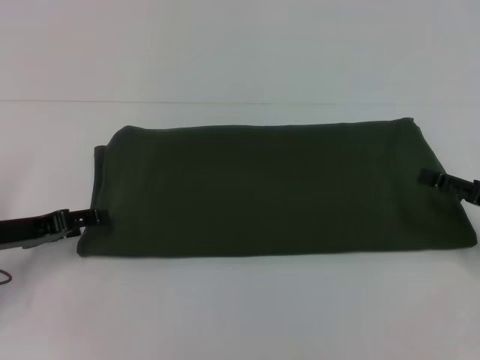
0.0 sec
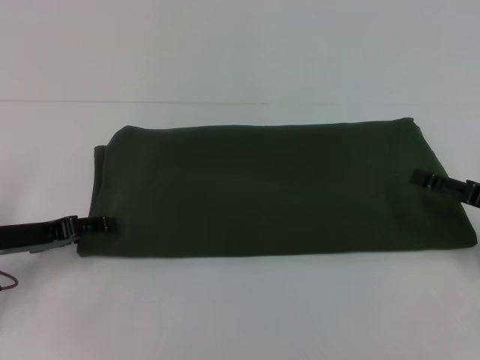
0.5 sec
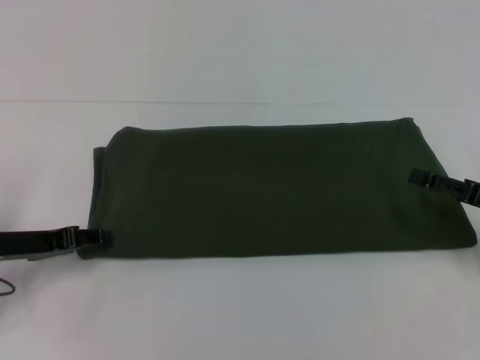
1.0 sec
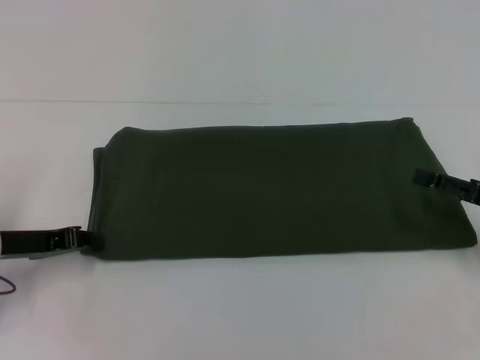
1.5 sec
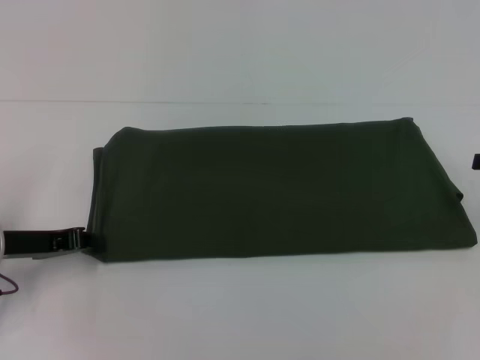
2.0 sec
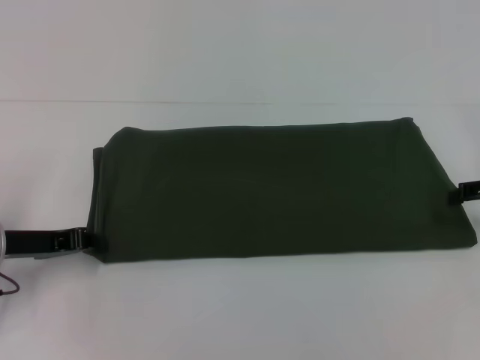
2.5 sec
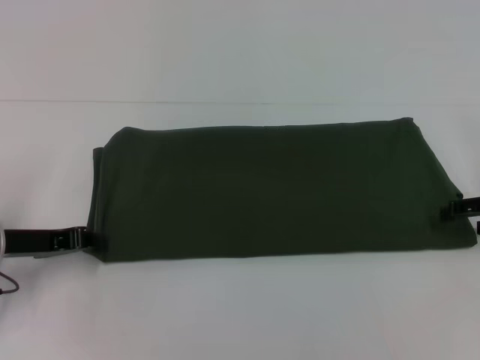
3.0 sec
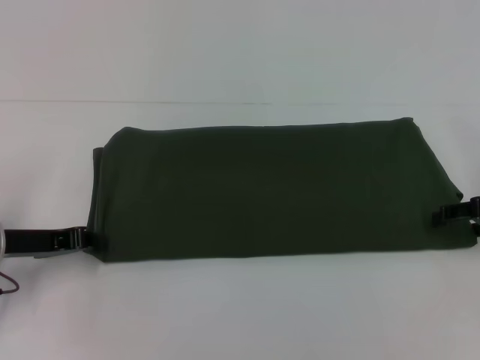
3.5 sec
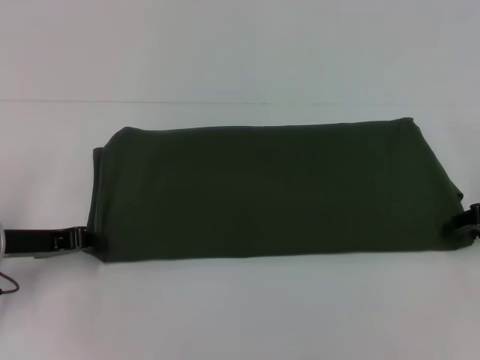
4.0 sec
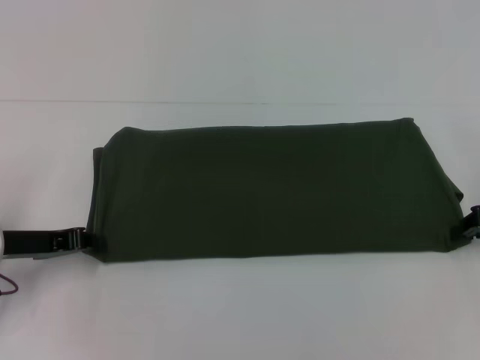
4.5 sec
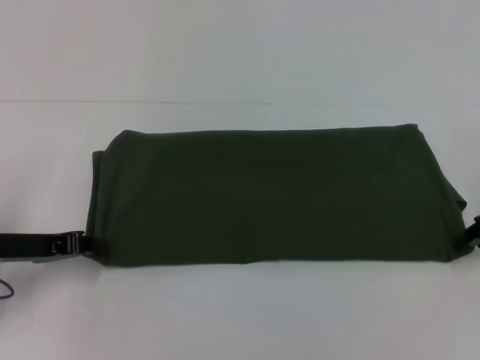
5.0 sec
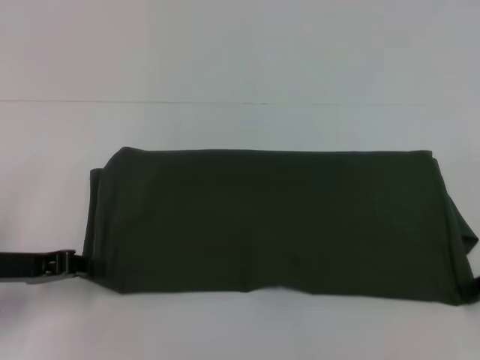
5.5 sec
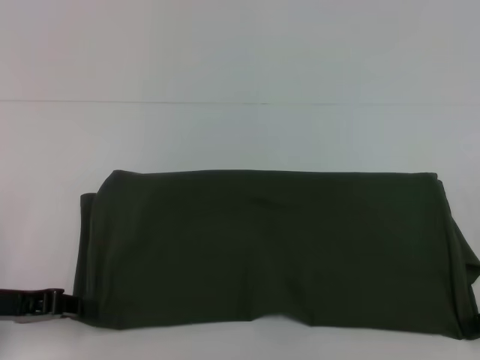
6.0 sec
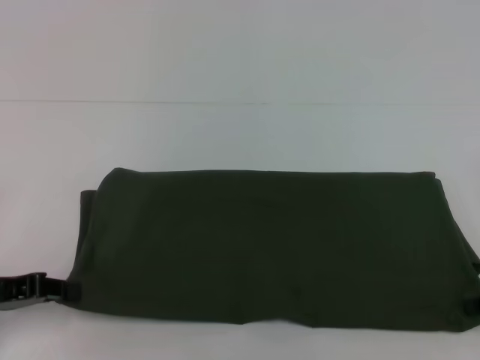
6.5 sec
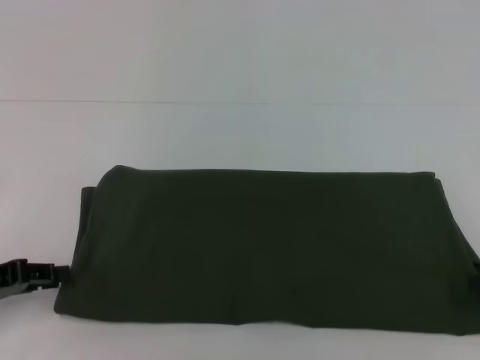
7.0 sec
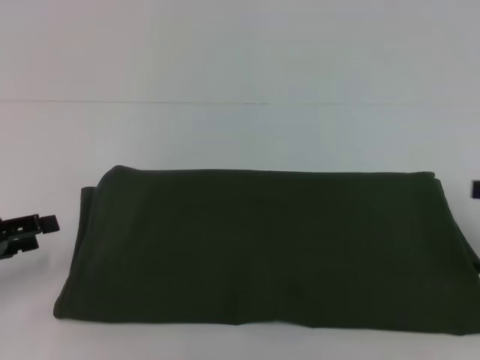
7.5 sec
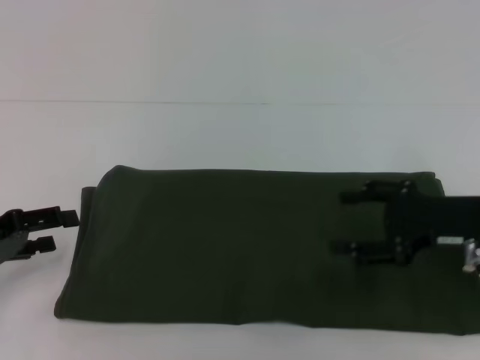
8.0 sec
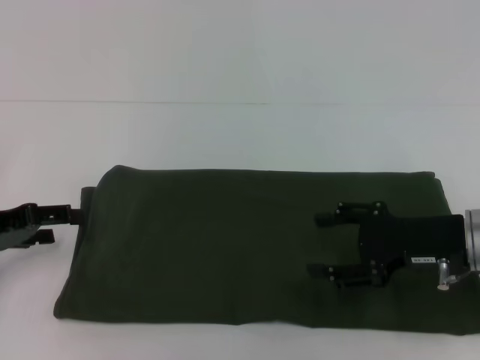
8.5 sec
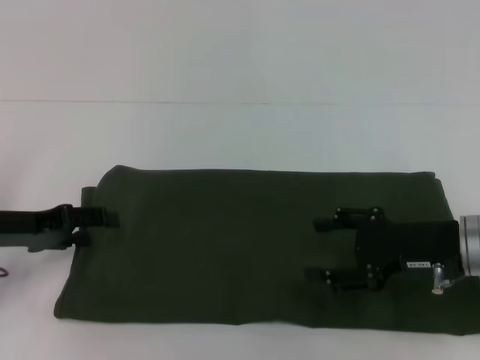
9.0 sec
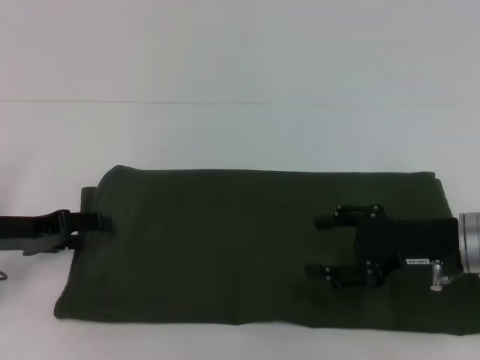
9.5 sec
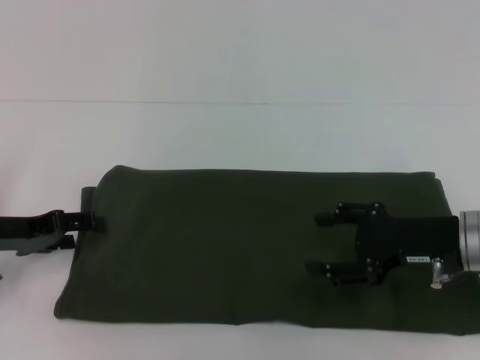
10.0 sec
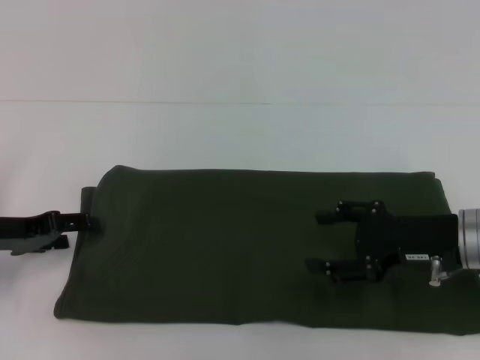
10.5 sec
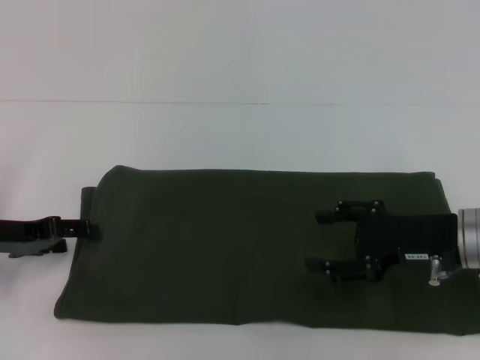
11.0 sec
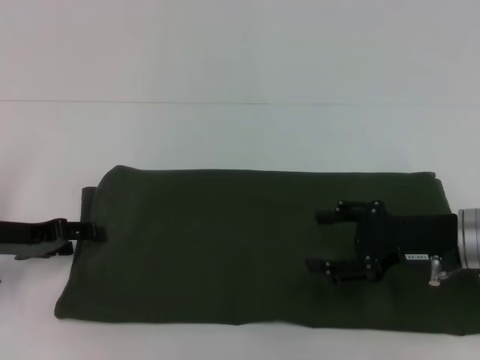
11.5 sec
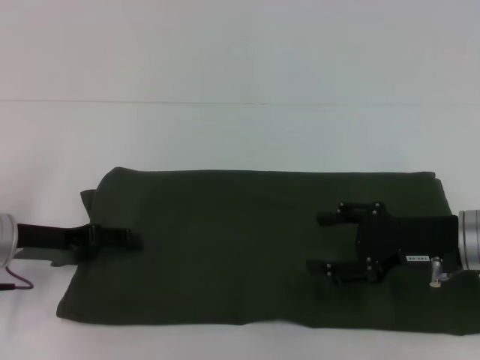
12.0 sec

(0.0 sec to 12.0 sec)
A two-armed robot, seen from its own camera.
0.0 sec - 2.0 sec: The right gripper is displaced upward by about 10 cm. The left gripper closes.
4.0 sec - 6.0 sec: The grippers both shift backward by roughly 5 cm. The right gripper closes its fingers.
6.0 sec - 8.0 sec: The right gripper goes some 10 cm to the left, and opens up. The left gripper opens.
8.0 sec - 10.0 sec: The left gripper shifts by some 5 cm.
10.0 sec - 12.0 sec: There are only small adjustments of the grippers.

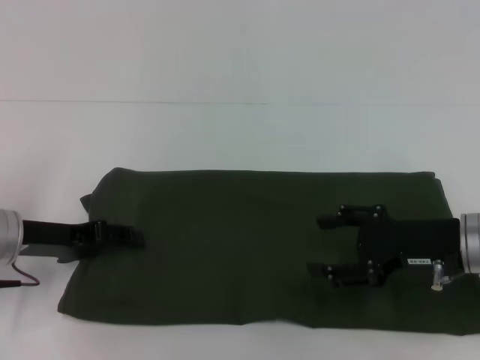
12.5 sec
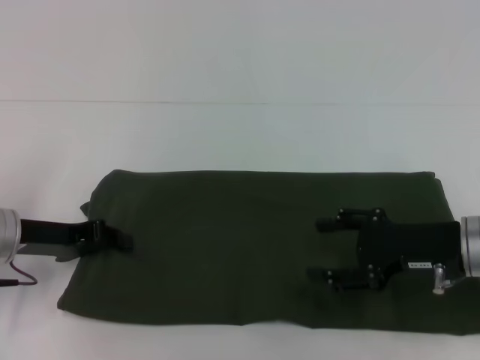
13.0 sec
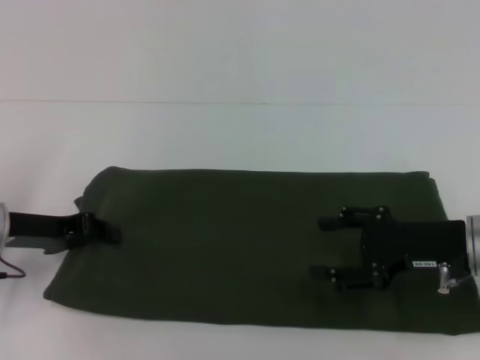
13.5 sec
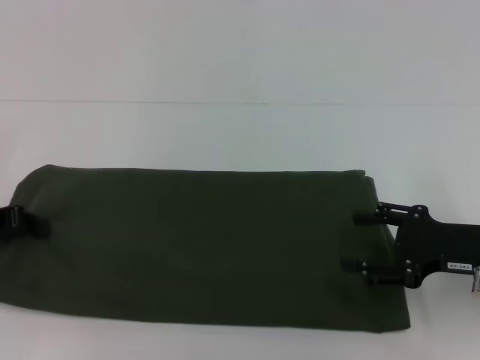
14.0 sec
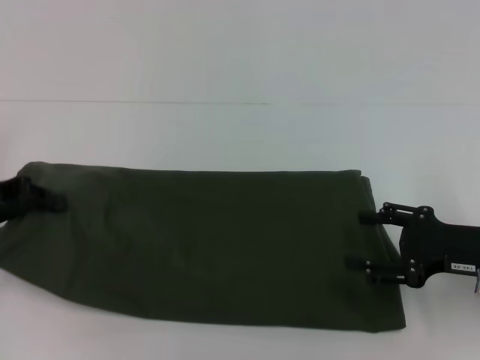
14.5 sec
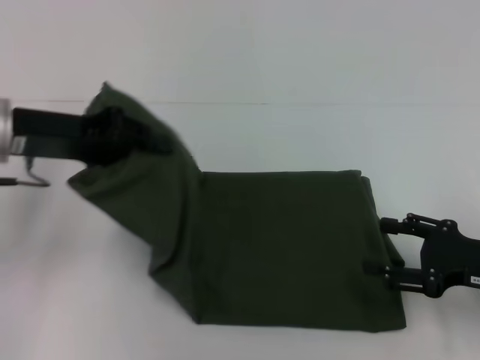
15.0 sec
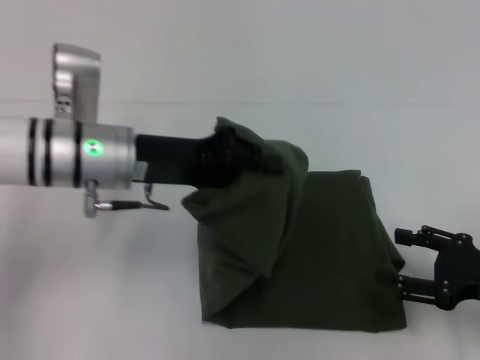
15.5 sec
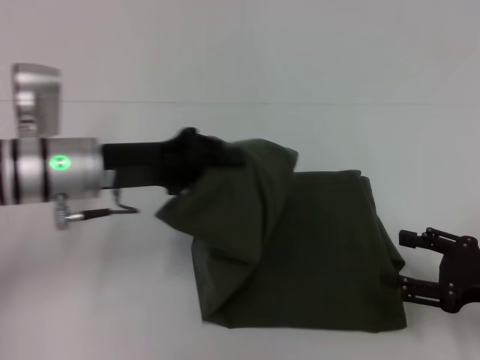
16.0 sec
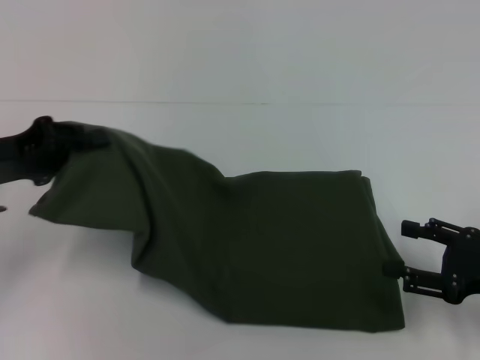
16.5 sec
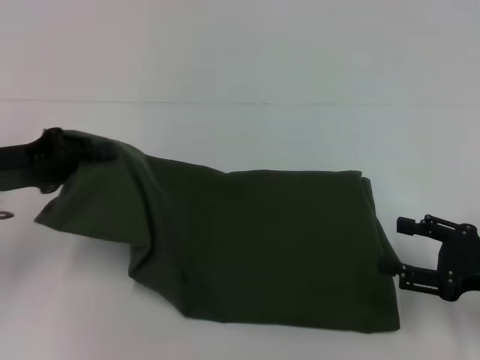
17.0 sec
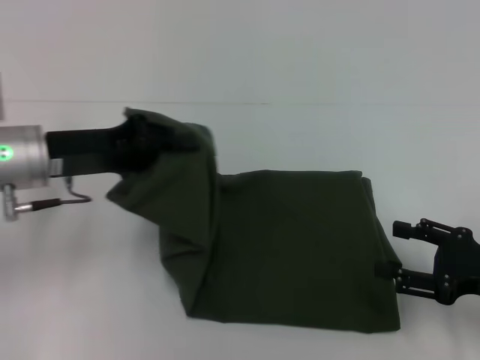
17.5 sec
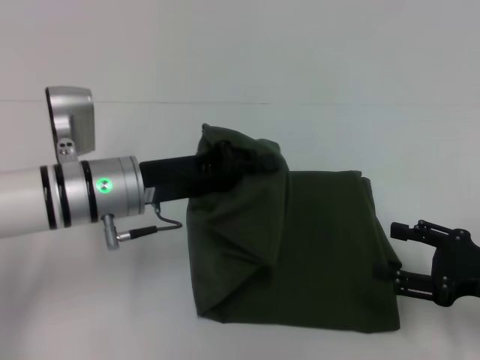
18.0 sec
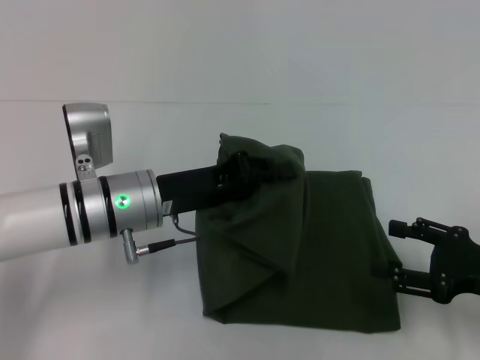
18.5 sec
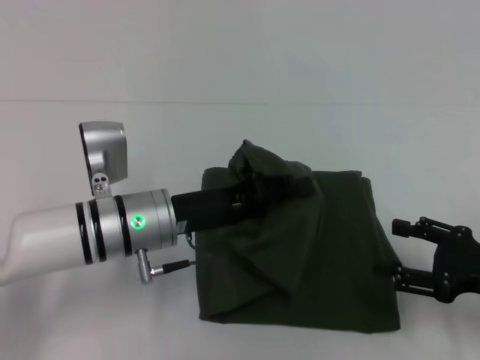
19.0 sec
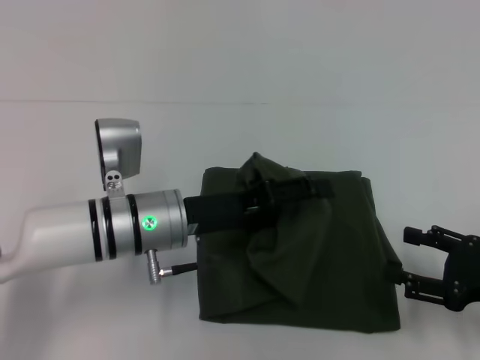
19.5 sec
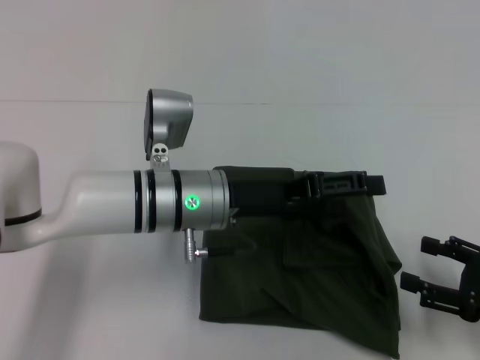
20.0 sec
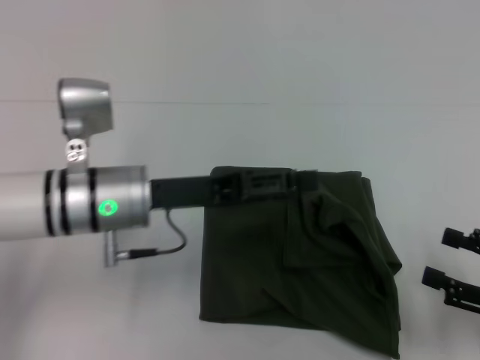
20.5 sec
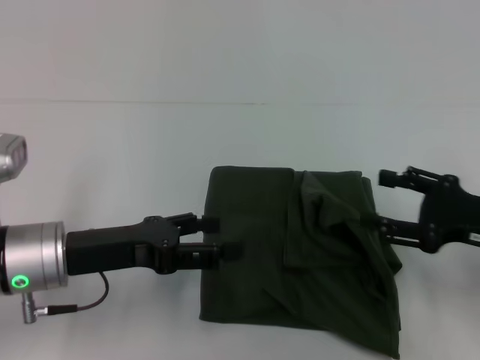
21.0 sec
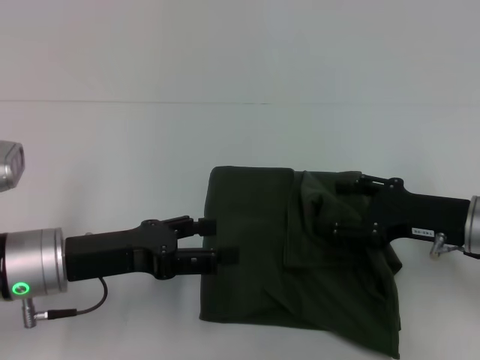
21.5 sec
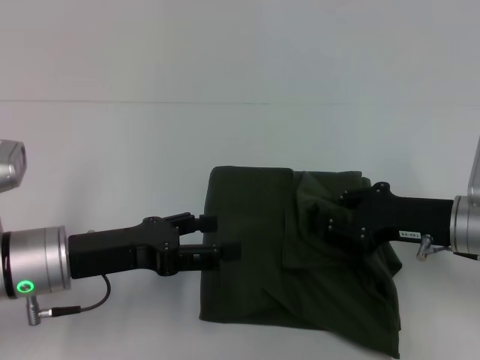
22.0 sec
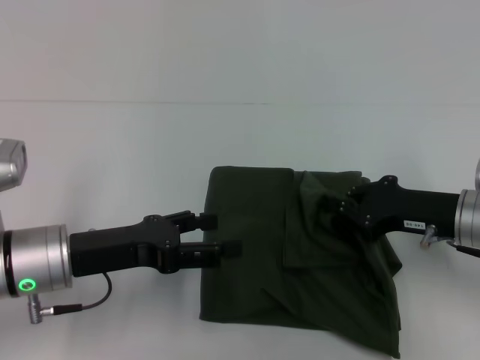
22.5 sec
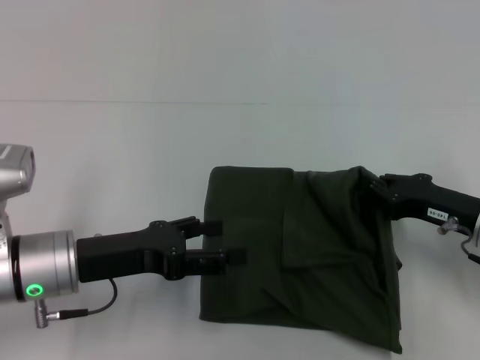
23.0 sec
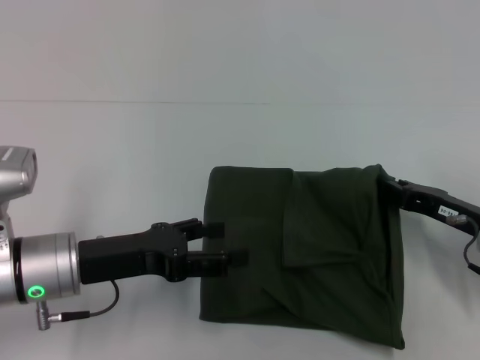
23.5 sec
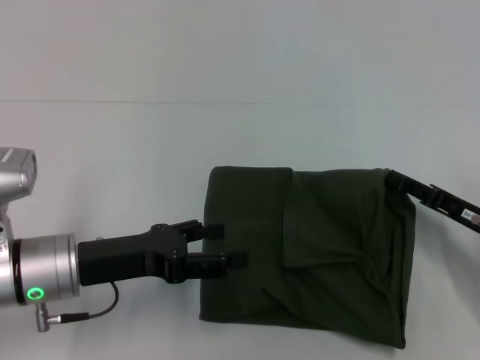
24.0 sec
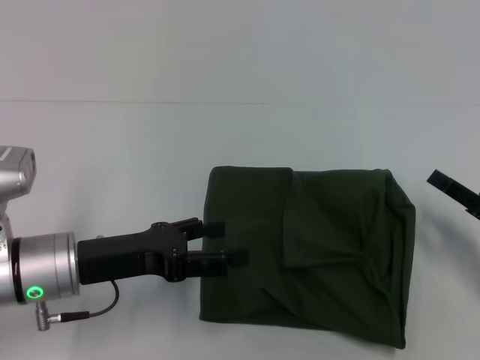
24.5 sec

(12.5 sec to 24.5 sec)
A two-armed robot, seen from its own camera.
Step, 12.5 sec - 20.0 sec: Fold the clothes with your left hand.
12.5 sec - 14.5 sec: The left gripper travels upward and to the left by approximately 10 cm, and closes its fingers.
14.5 sec - 16.5 sec: The right gripper moves some 5 cm. Meanwhile the left gripper goes to the right and returns, about 20 cm each way.
16.5 sec - 18.5 sec: The left gripper shifts roughly 15 cm to the right.
18.5 sec - 20.5 sec: The left gripper opens, while the right gripper shifts by approximately 5 cm.
20.5 sec - 22.5 sec: The left gripper goes roughly 10 cm to the left and backward; the right gripper goes approximately 15 cm forward and to the left, and closes.
22.5 sec - 24.5 sec: The right gripper heads to the right and backward, covering roughly 10 cm, and opens.

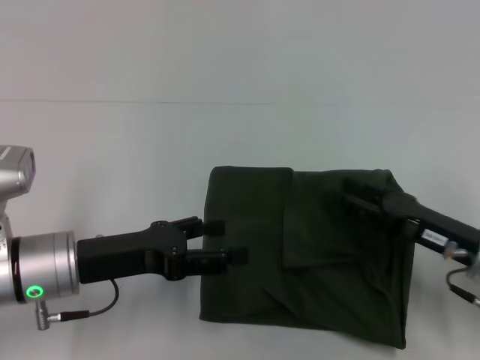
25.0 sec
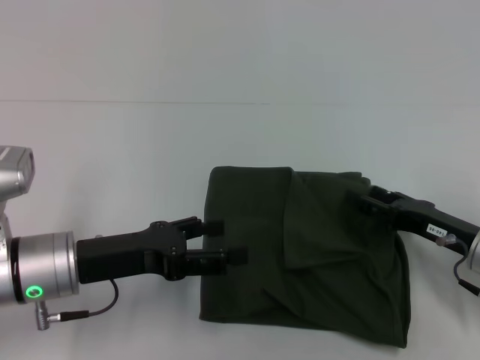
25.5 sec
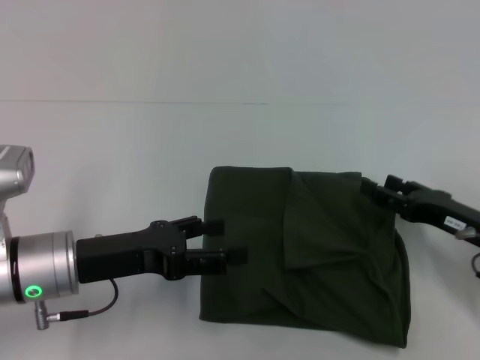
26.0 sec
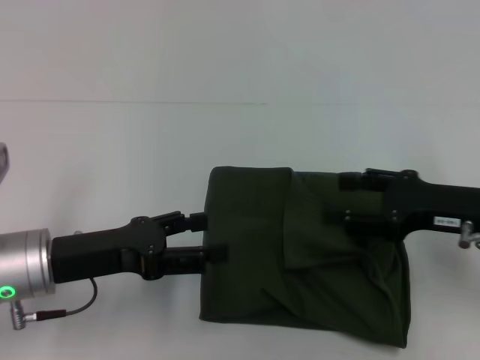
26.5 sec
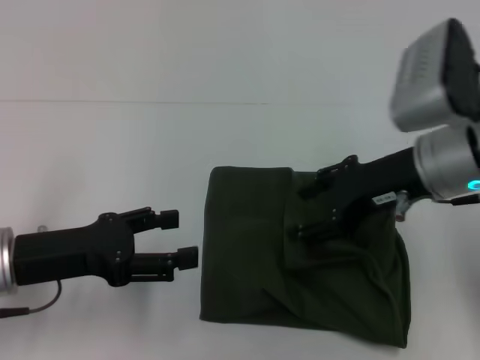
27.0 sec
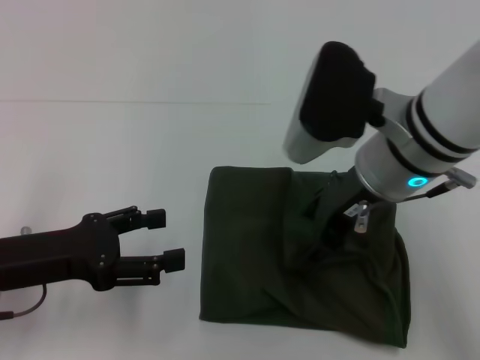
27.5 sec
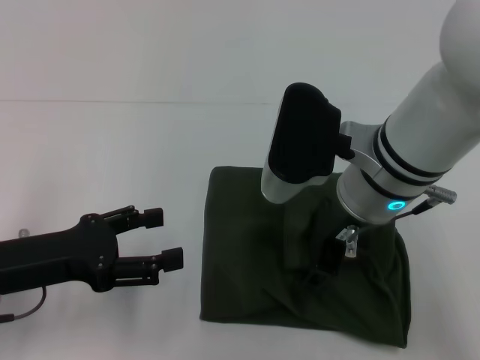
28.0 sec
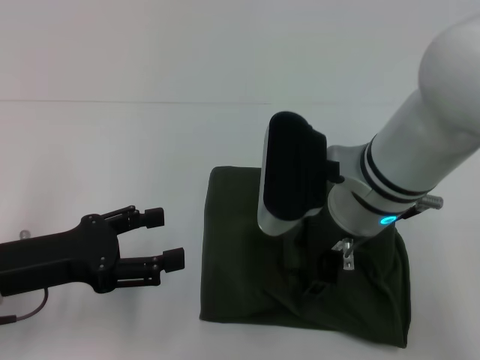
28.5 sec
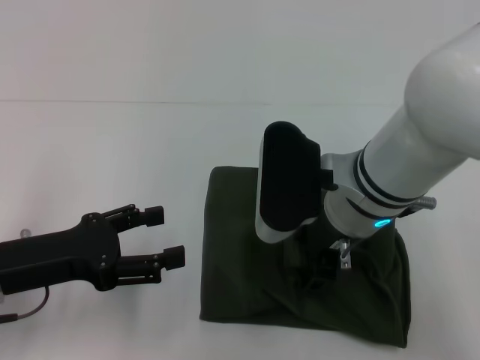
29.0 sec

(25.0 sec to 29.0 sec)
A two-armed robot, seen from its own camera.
25.0 sec - 27.0 sec: The left gripper shifts by some 5 cm, while the right gripper goes about 15 cm upward and to the left.
27.0 sec - 29.0 sec: The right gripper travels to the left by some 10 cm.
